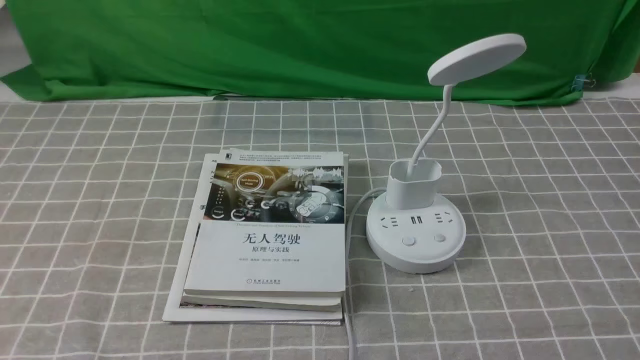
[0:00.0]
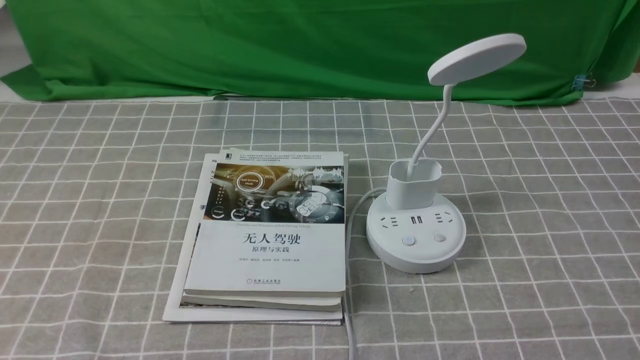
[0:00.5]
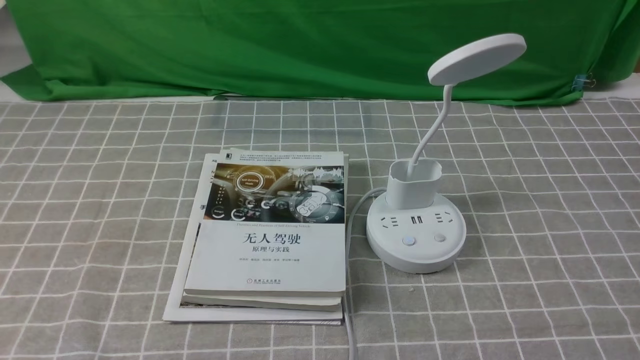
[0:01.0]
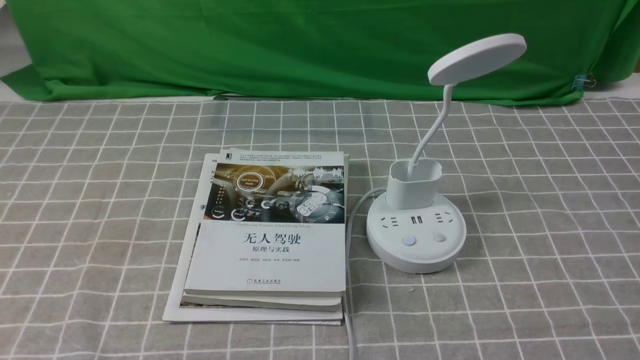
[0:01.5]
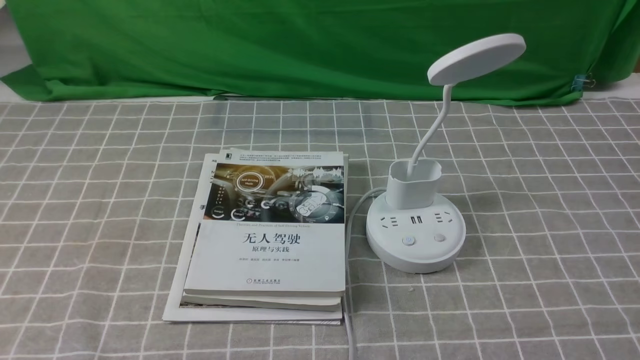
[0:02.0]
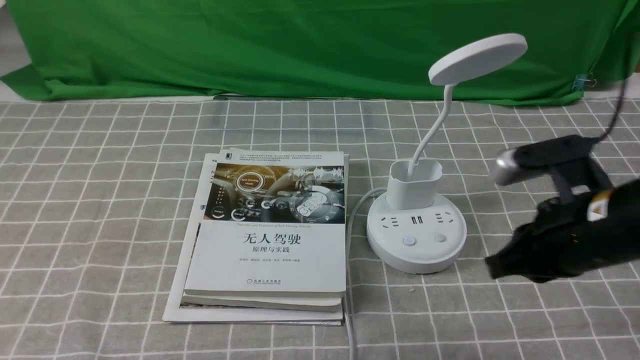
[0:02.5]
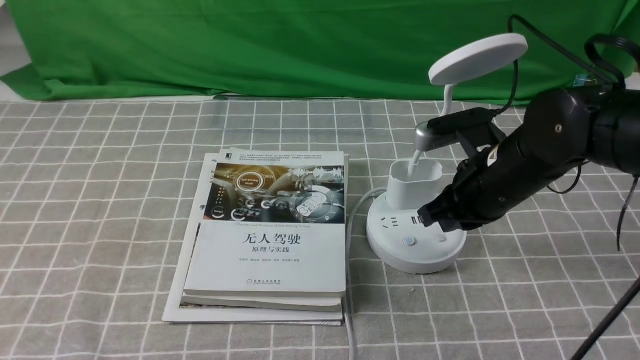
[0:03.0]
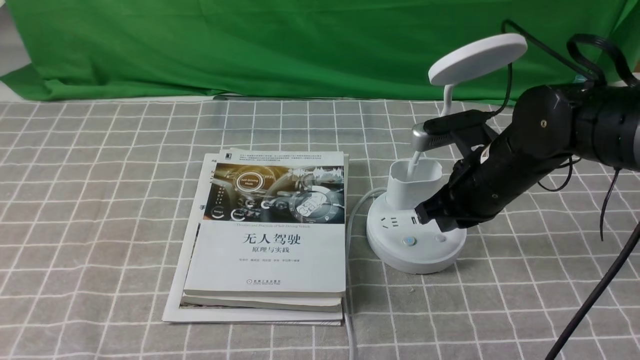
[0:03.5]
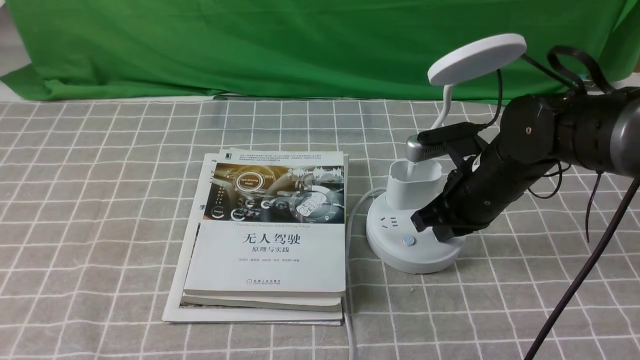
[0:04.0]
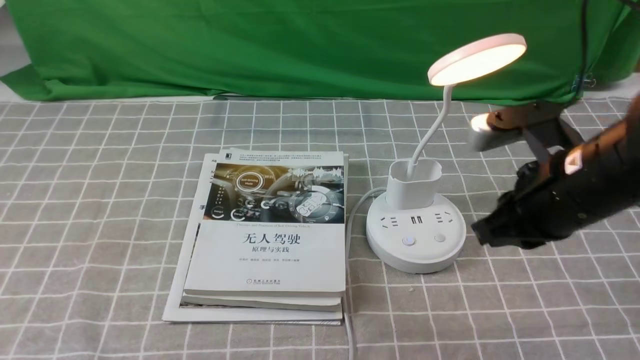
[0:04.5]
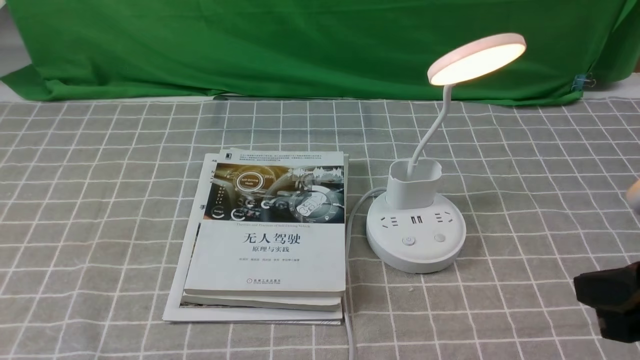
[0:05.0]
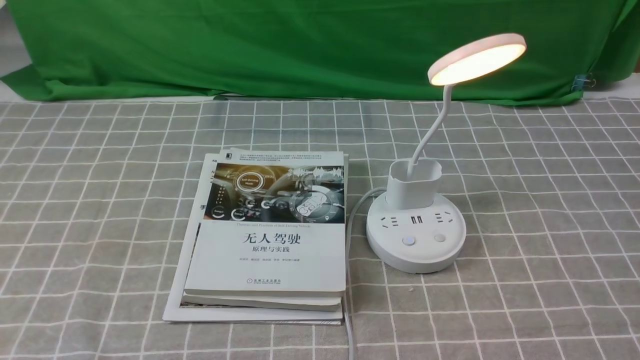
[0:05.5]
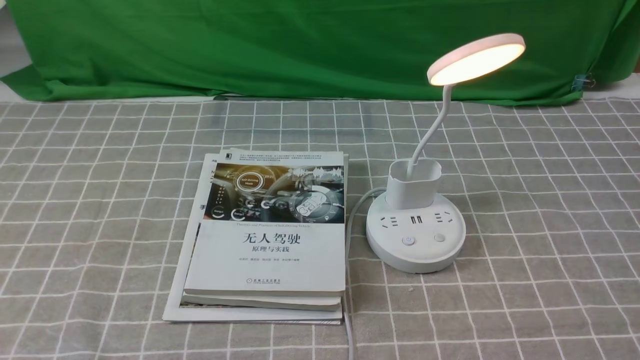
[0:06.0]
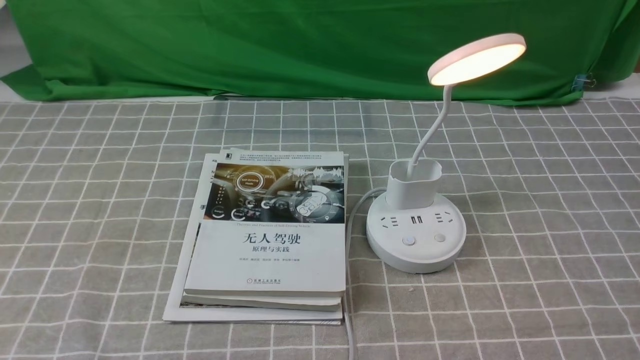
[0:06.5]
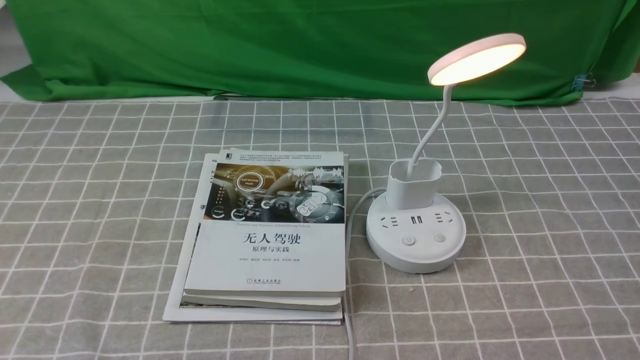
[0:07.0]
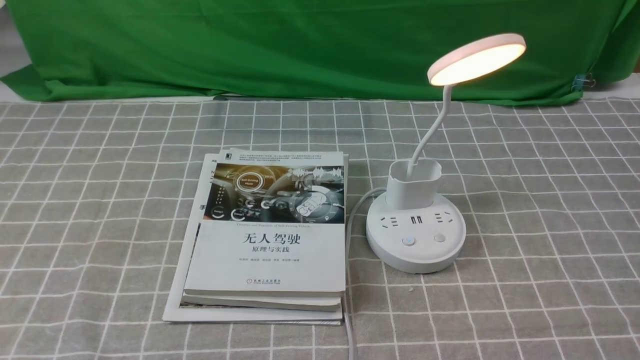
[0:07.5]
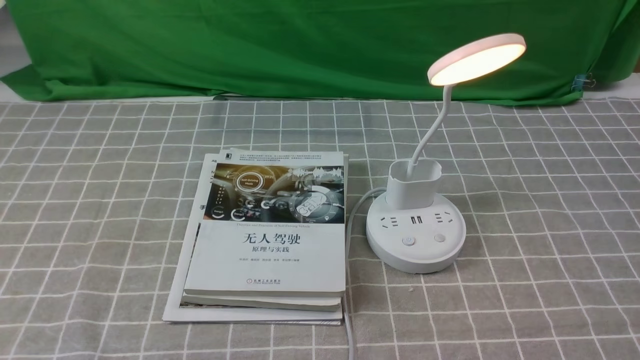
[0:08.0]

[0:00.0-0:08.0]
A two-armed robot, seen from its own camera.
Step, 0:00.0 to 0:04.0: use the right arm to press the button switch on the lamp holder.
0:02.0 to 0:04.0: The right gripper moves forward and to the left, approximately 30 cm.
0:04.0 to 0:06.0: The right gripper travels backward and to the right by roughly 35 cm.
